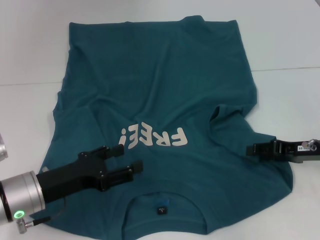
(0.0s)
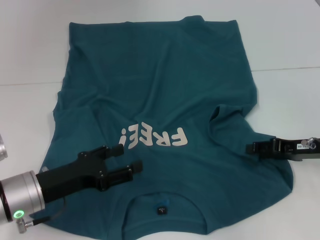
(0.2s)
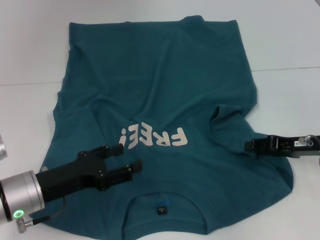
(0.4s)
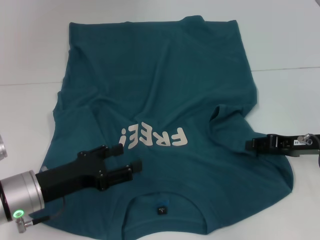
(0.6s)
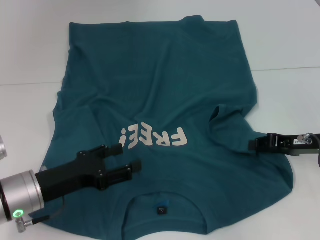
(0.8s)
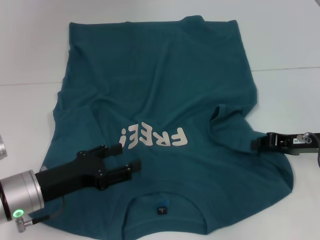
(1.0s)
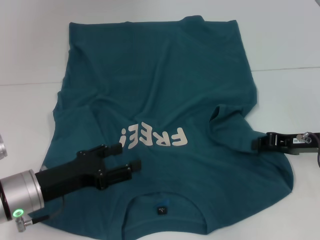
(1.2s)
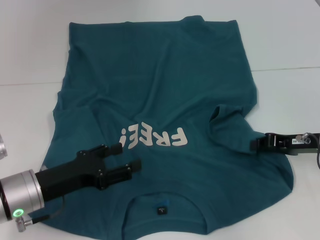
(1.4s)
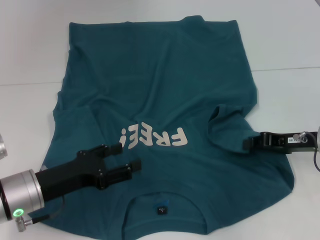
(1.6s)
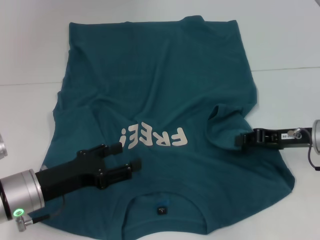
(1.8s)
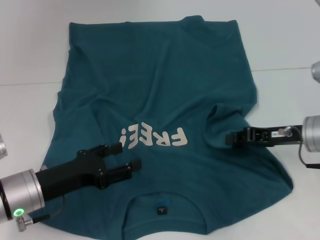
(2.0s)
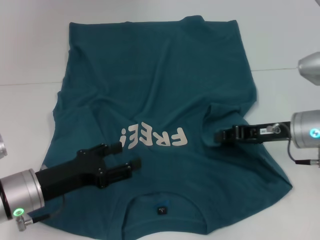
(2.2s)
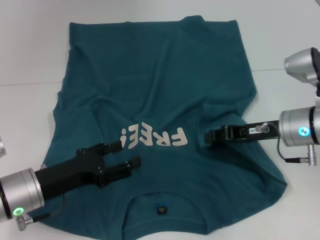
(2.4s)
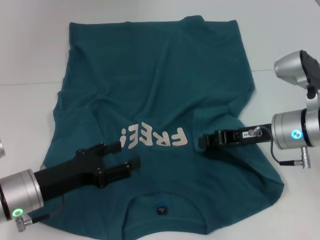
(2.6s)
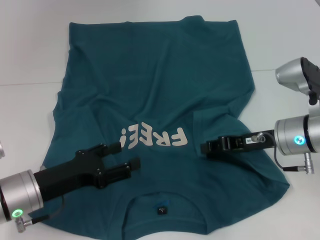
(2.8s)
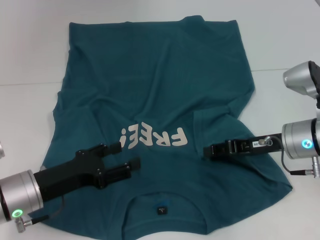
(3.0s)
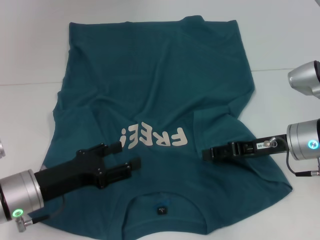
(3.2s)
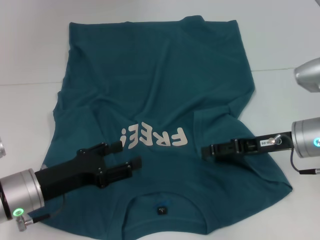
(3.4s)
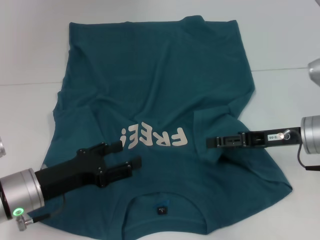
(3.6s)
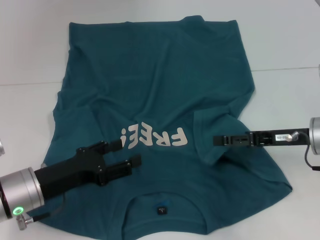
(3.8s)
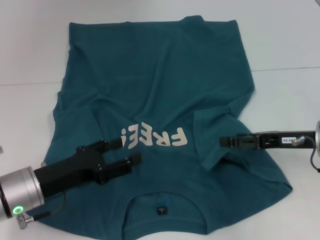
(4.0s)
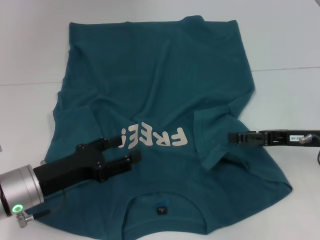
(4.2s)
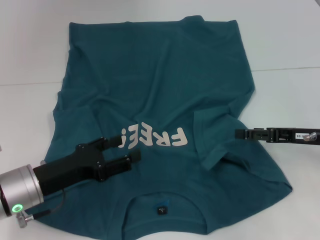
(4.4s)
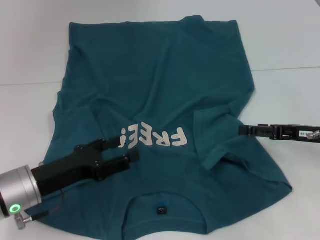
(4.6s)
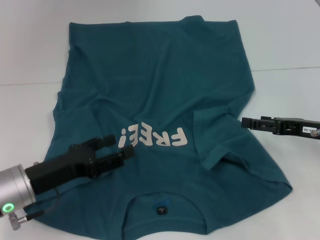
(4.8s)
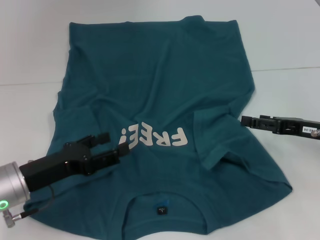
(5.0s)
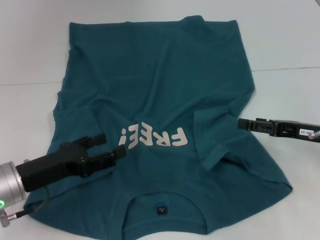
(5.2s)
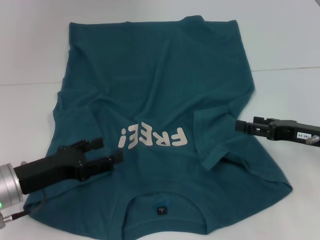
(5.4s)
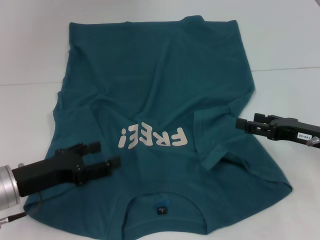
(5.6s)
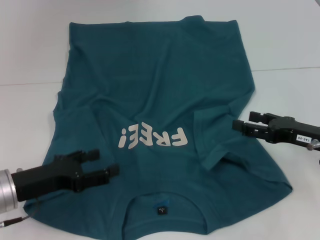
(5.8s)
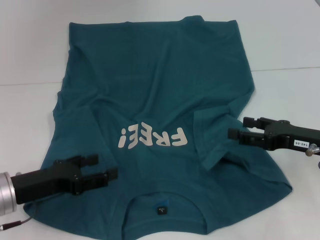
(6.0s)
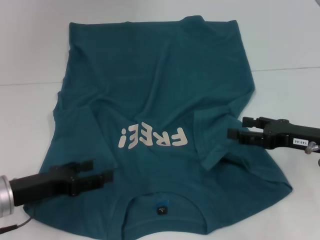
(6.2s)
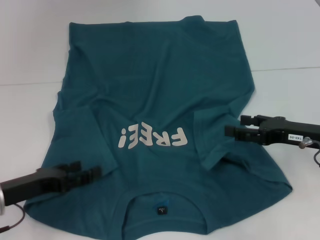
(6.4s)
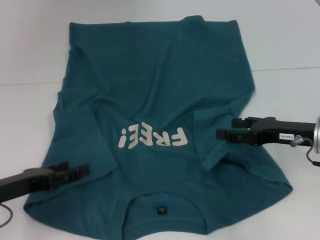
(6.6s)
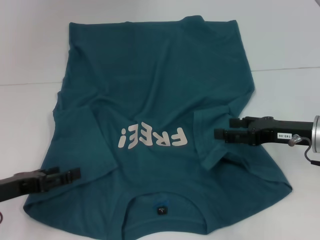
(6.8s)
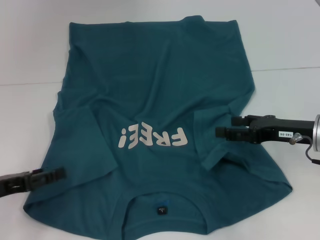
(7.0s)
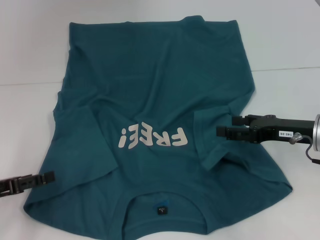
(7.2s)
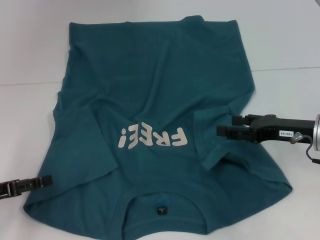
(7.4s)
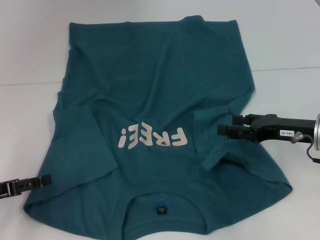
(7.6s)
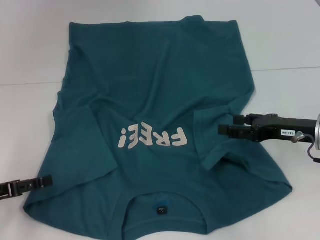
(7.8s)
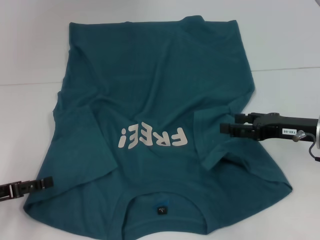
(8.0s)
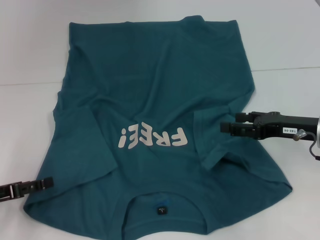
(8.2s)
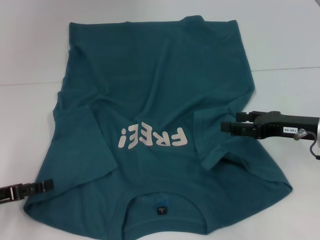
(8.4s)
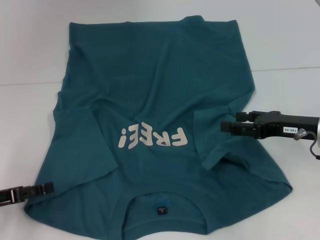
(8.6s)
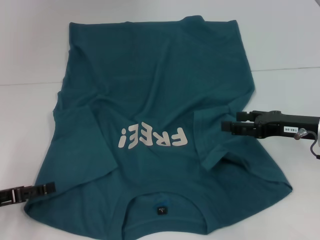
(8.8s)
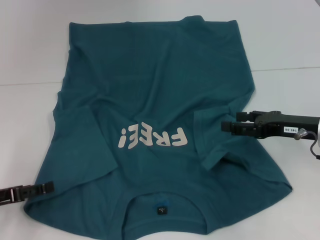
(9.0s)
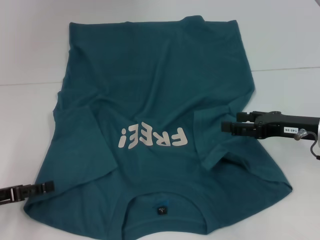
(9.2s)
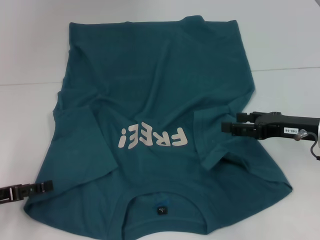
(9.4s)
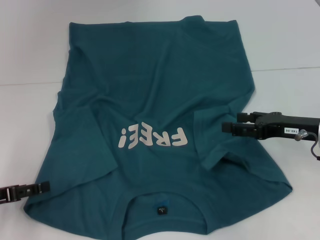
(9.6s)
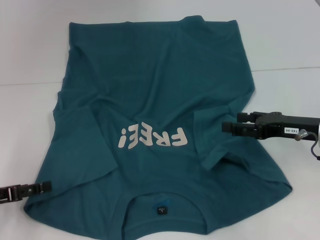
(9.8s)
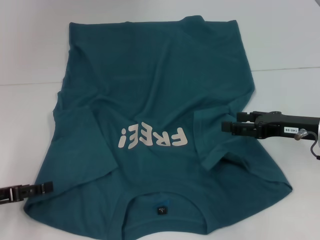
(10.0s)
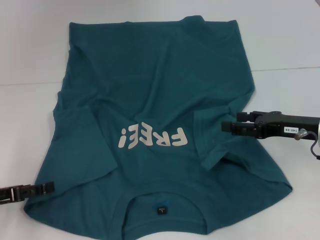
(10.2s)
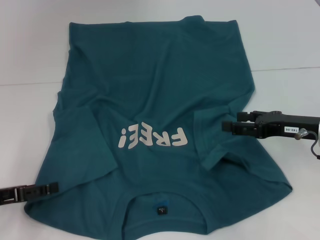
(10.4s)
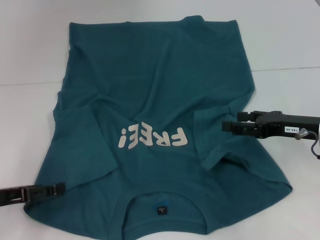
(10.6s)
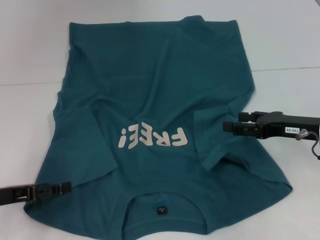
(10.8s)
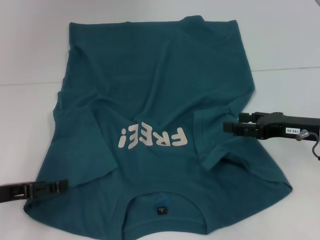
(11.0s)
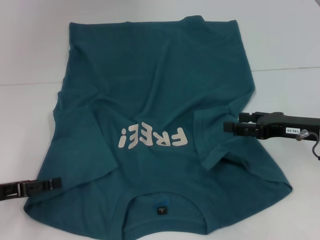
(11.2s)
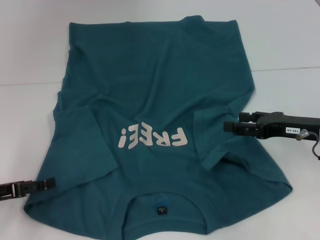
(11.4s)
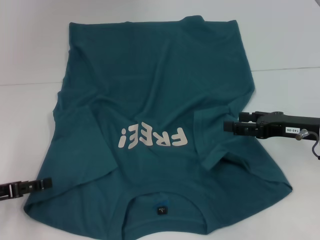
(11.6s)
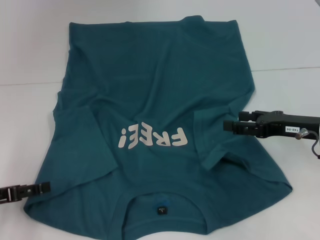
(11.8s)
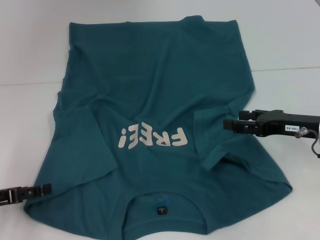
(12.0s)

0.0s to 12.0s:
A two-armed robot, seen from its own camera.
Step, 0.0s to 4.4s: Fold the bottom right sleeve to the right.
0.0s to 1.6s: The right gripper closes up.
1.6s to 3.0s: The right gripper travels to the left by approximately 5 cm.
3.0s to 4.4s: The right gripper is displaced to the right by about 5 cm, and opens.
4.4s to 6.0s: The grippers stay close to where they were, moving slightly.
6.0s to 7.6s: The left gripper moves to the left, about 10 cm.
7.6s to 10.4s: Both grippers stay put.
10.4s to 12.0s: The grippers make only small movements.

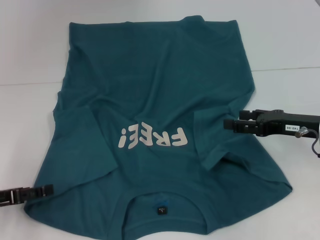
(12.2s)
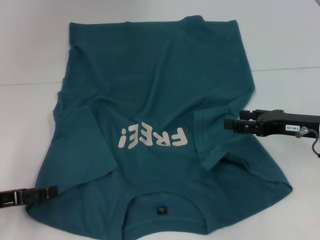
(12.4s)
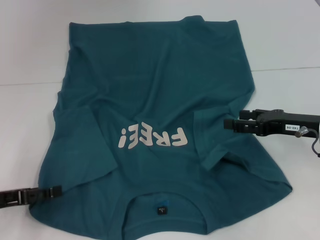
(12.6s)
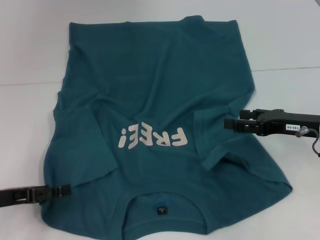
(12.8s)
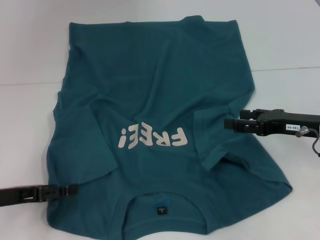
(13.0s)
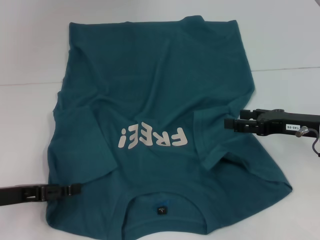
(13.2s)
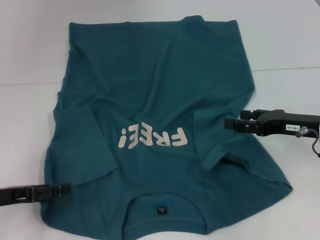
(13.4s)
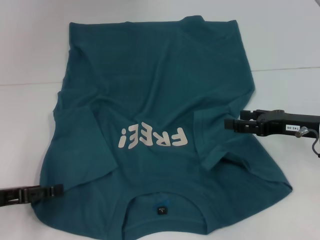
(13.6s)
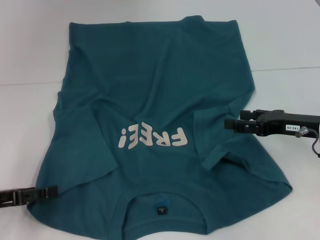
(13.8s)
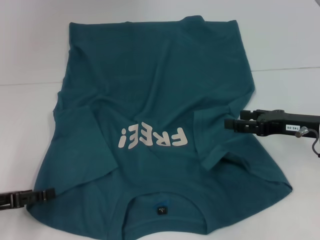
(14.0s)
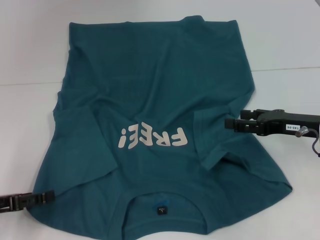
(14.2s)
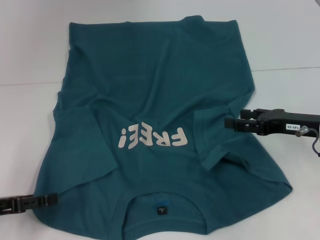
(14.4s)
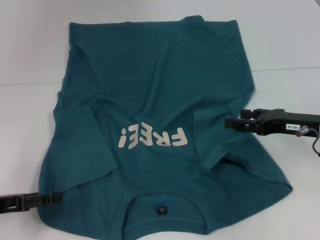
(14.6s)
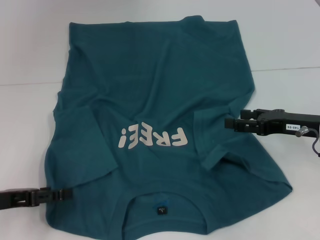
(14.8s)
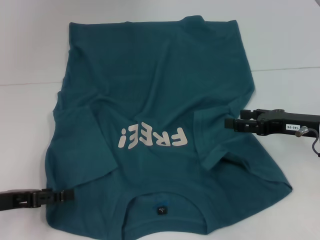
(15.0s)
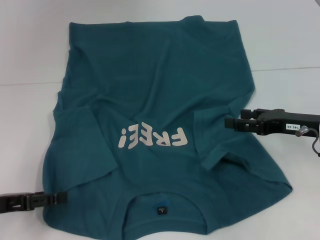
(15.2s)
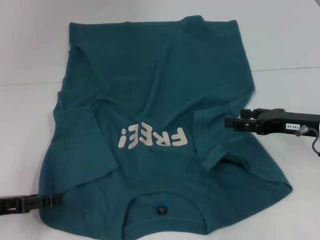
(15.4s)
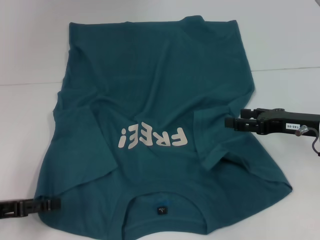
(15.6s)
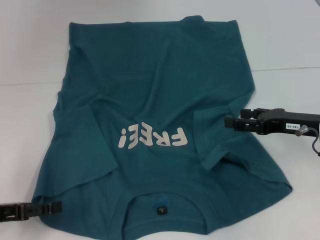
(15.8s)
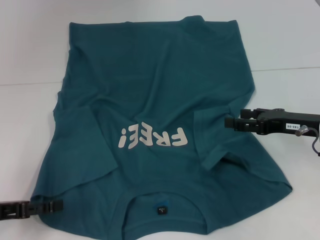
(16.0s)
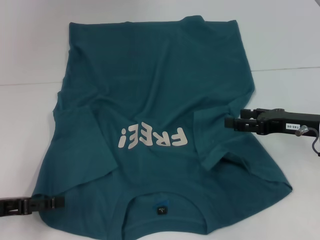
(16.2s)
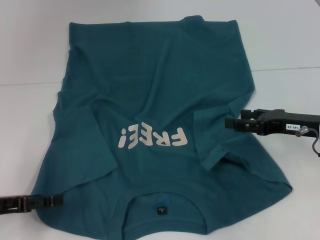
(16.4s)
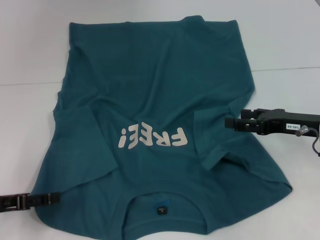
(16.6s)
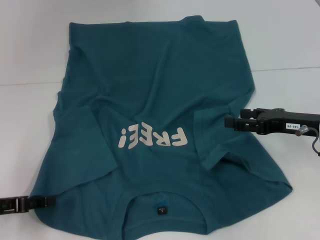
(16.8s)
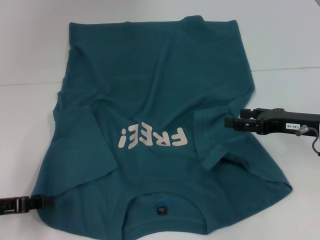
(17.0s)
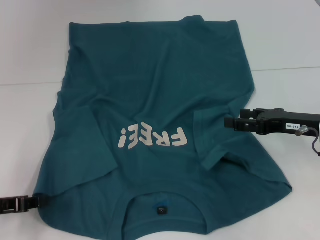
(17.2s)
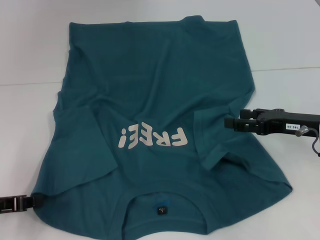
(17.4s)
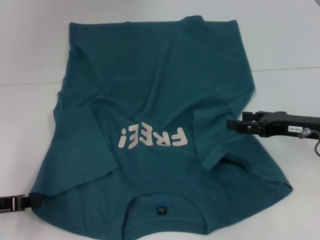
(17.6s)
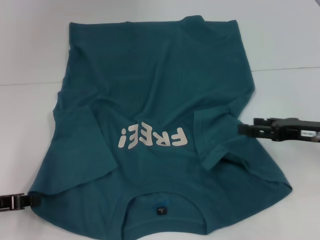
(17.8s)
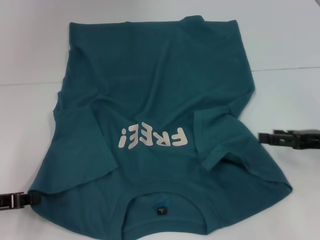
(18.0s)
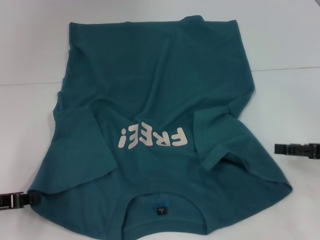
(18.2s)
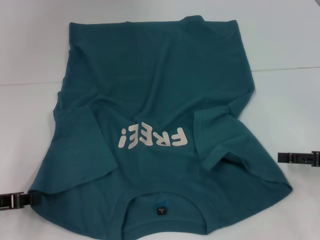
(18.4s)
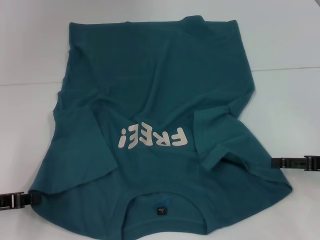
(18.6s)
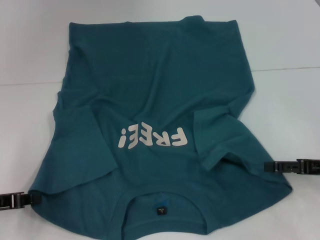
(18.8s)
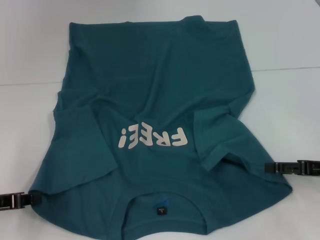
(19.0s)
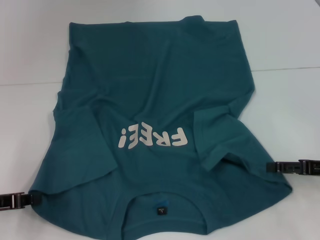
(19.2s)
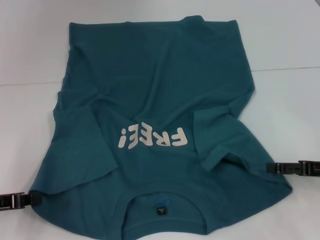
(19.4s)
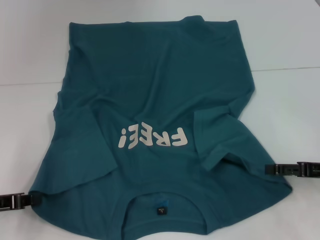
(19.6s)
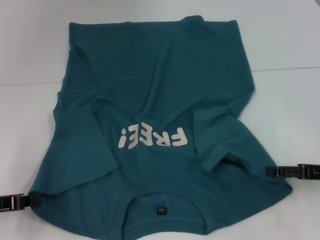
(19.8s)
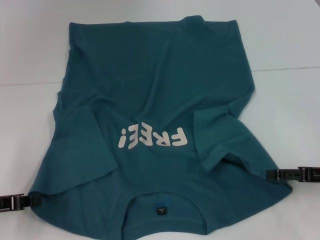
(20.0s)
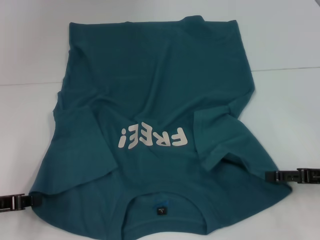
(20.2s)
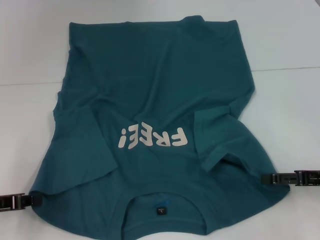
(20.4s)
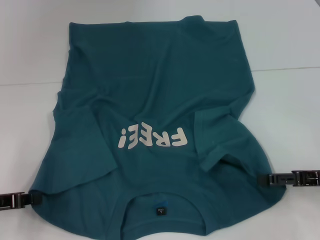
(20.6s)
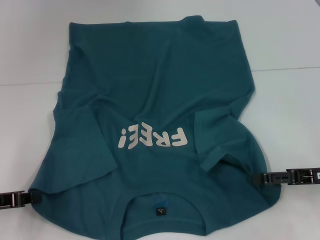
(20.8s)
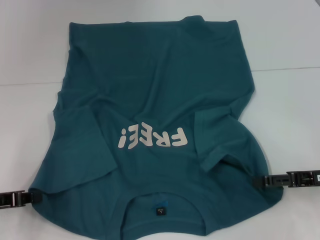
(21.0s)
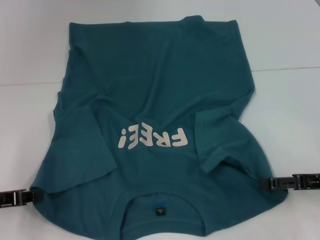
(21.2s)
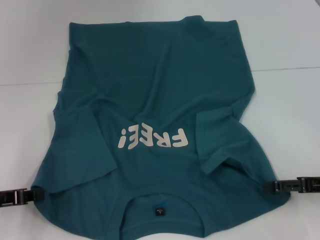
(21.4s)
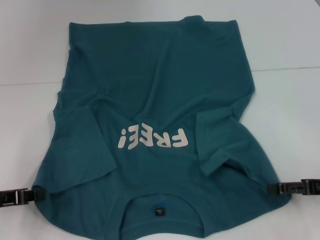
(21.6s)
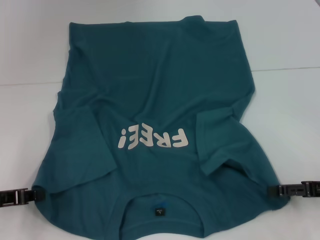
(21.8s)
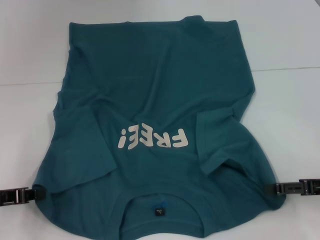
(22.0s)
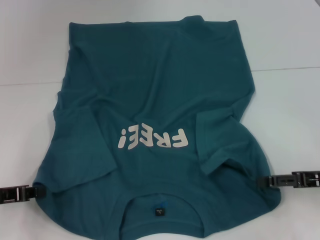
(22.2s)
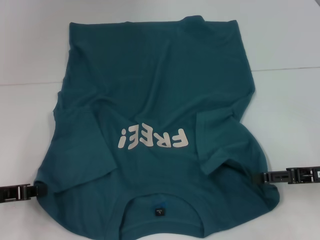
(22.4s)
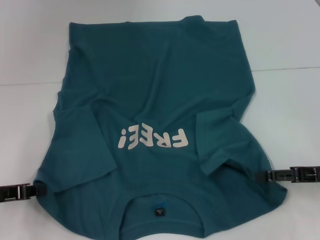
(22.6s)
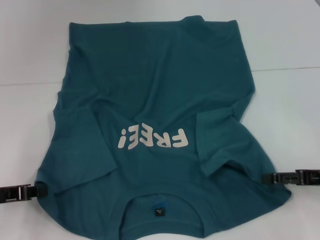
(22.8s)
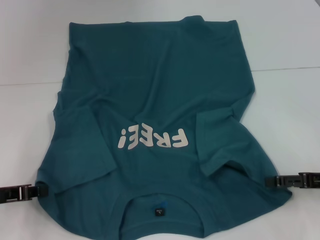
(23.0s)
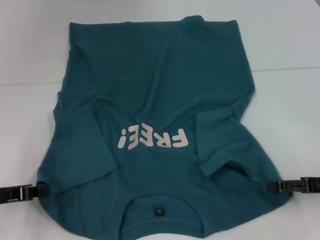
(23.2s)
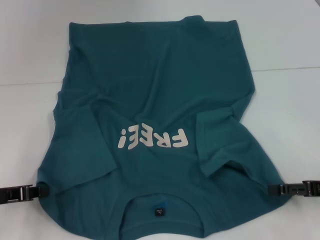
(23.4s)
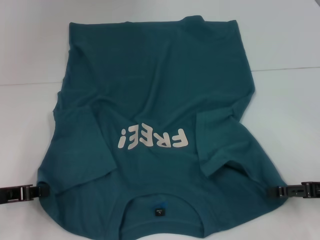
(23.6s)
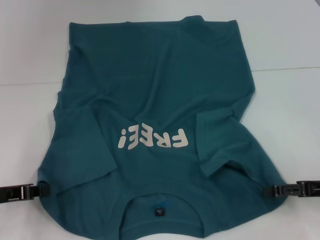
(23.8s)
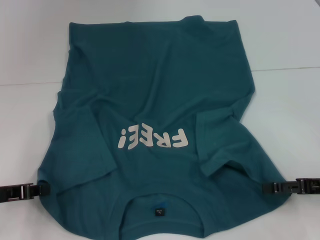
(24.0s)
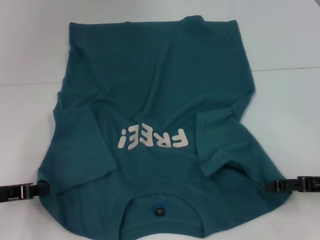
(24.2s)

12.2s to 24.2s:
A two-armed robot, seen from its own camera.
Step, 12.2s to 17.6s: Grab the bottom left corner with your left hand.
13.8s to 15.2s: The grippers make only small movements.
15.2s to 16.6s: The two grippers keep their place.
16.6s to 18.2s: The left gripper closes; the right gripper heads to the right, covering about 5 cm.
18.2s to 24.2s: The grippers move only a little.
